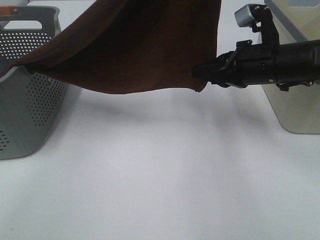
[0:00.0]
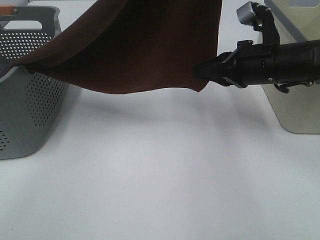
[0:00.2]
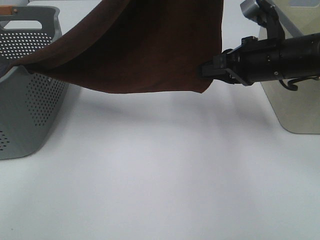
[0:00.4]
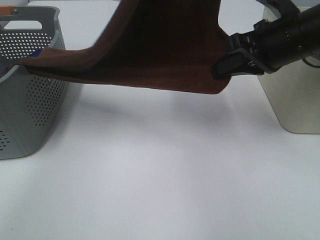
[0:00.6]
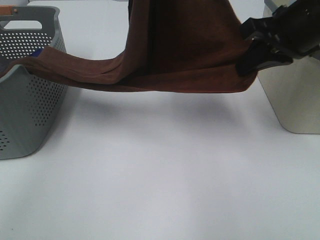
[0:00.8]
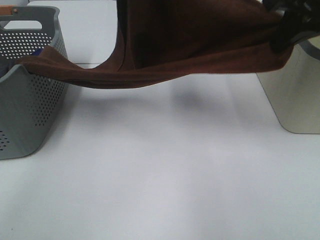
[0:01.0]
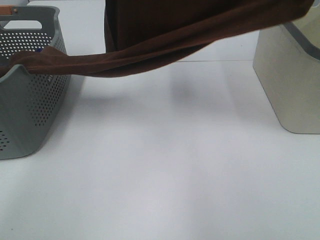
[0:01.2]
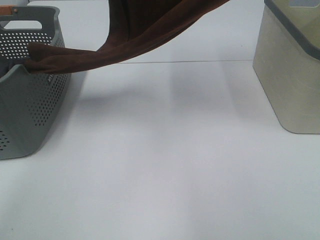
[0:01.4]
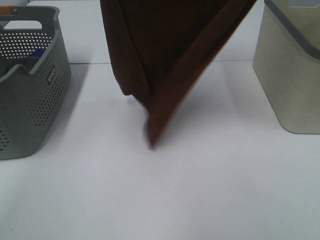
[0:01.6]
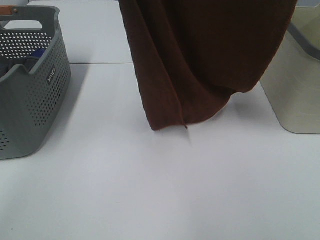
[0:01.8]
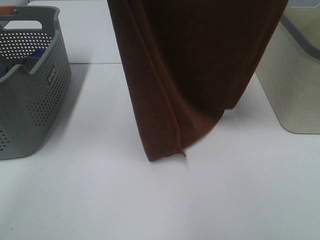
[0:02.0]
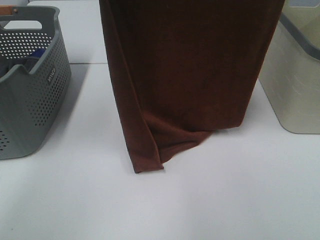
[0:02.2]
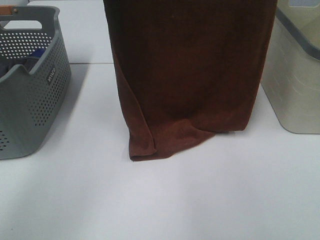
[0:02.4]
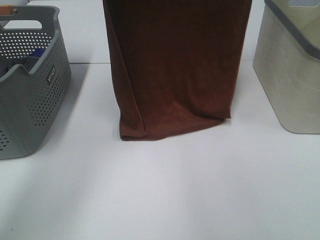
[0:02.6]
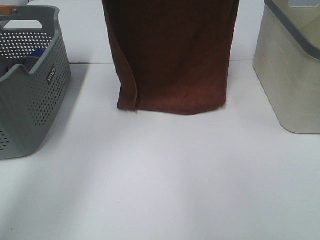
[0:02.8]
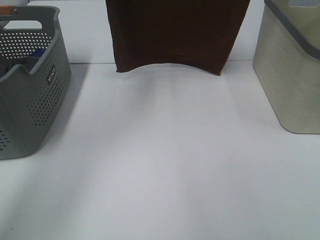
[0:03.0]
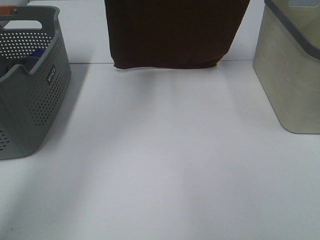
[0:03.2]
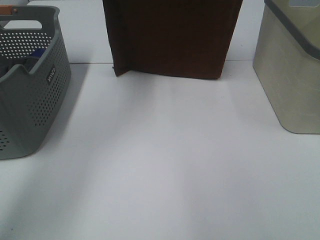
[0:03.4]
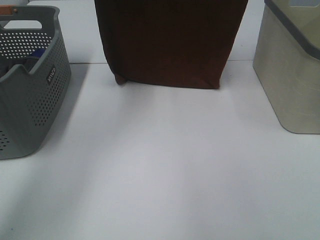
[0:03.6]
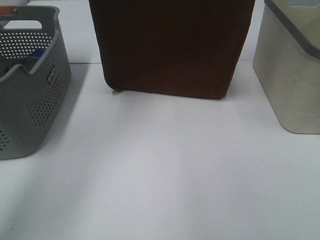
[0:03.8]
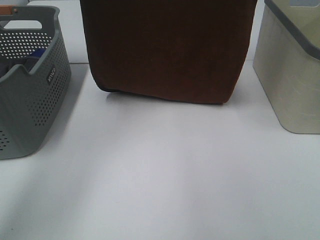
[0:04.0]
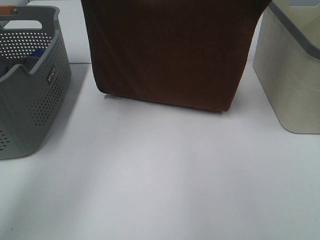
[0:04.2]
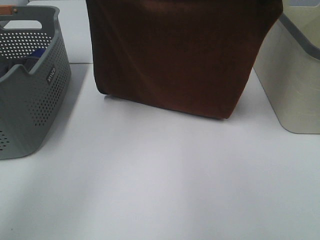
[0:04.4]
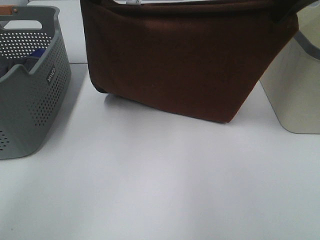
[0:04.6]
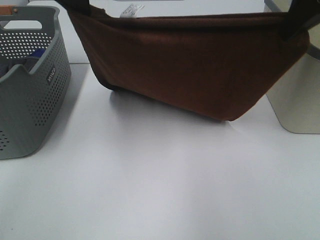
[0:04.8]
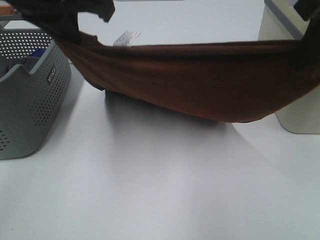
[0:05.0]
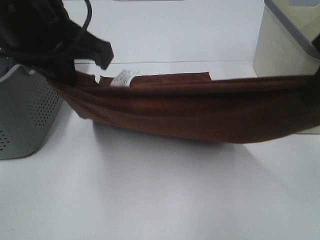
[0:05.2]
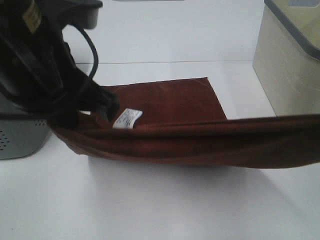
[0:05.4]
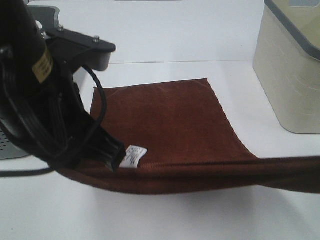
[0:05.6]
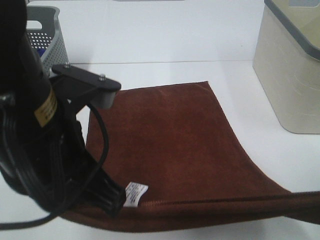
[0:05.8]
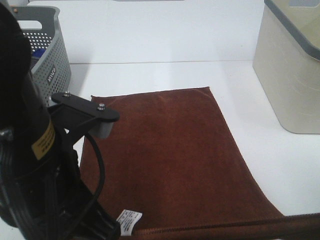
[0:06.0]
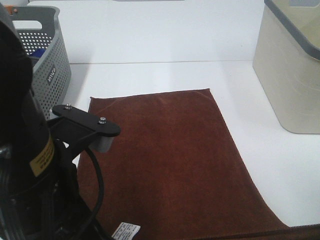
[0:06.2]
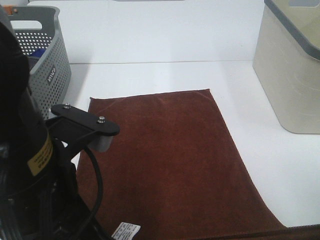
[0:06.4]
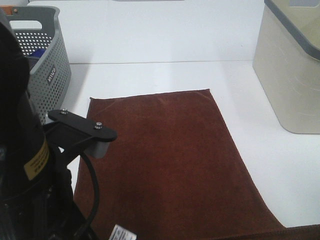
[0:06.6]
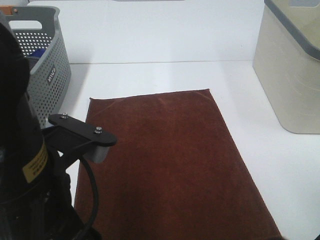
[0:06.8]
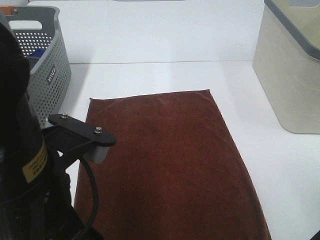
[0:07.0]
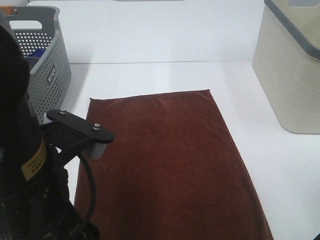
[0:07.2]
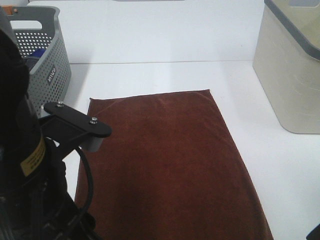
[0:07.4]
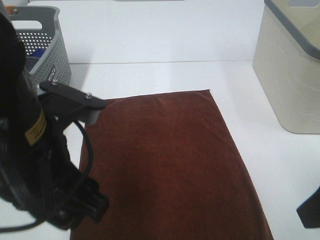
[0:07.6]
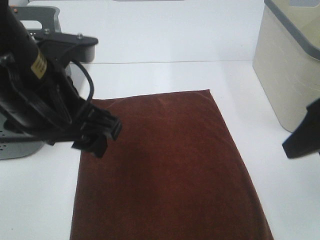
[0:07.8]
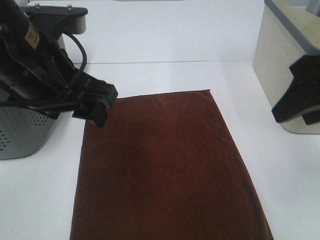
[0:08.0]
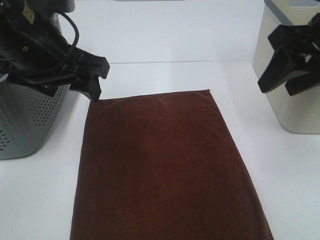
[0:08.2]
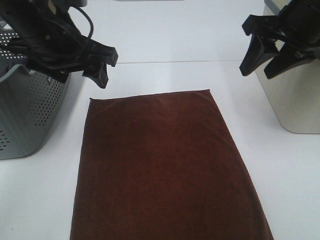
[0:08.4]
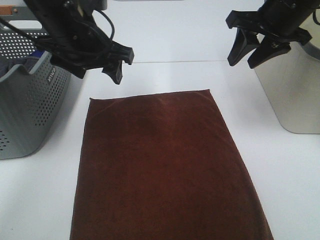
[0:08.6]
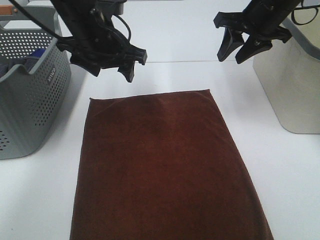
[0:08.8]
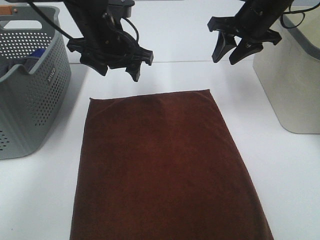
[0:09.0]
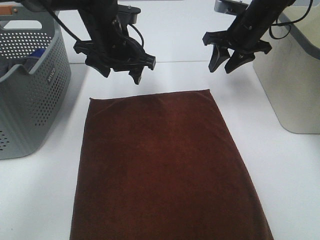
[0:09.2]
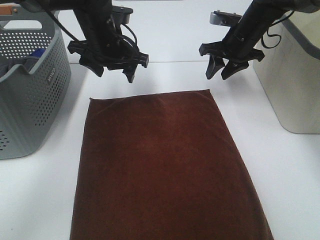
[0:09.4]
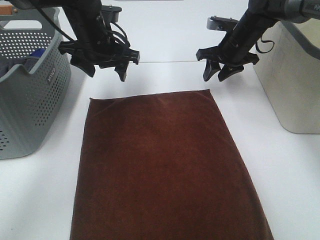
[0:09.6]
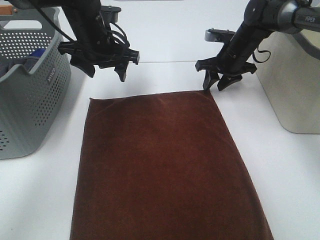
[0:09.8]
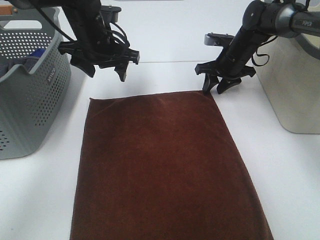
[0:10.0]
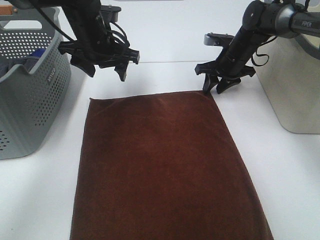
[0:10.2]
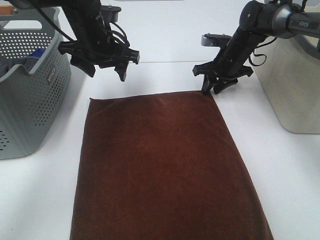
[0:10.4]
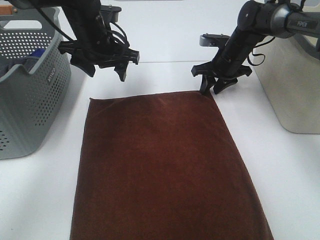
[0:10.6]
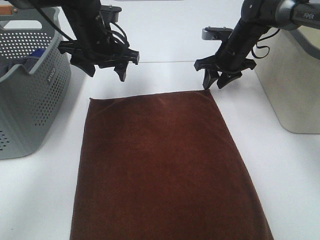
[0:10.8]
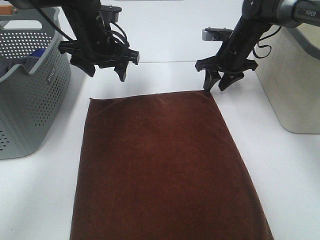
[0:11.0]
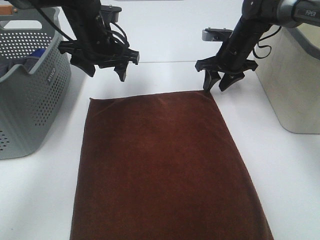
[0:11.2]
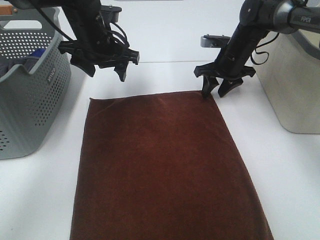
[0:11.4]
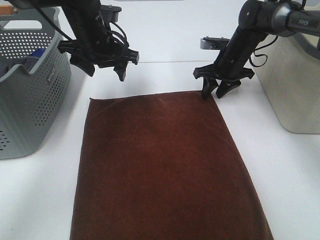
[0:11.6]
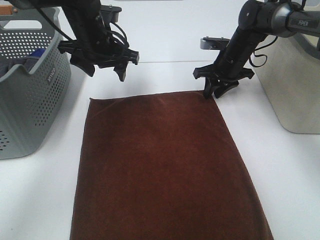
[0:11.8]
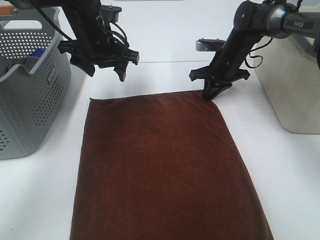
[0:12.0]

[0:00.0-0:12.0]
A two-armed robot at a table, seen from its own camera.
Task of the whole recording: Remove the towel and place it.
Step, 0:00.0 to 0:03.2: Left hand: spread the brown towel flat on the table.
Step, 0:00.0 to 0:03.2: Right hand: spread the brown towel flat on the table.
Step, 0:03.4 to 0:11.2: Left hand:adjust the brown towel.
Step, 0:03.4 to 0:11.2: Right hand:adjust the brown towel.
0:00.0 to 0:01.6: The right gripper is displaced upward by some 35 cm; the left gripper is displaced to the left and upward by about 15 cm.
0:01.6 to 0:03.0: The right gripper shifts about 10 cm forward, while the left gripper goes approximately 15 cm forward and downward.
0:03.0 to 0:04.4: Both grippers travel together downward, approximately 15 cm.
0:04.4 to 0:06.0: Both grippers travel together backward and downward, roughly 30 cm.
0:06.0 to 0:07.6: The right gripper opens. The left gripper opens up.
0:07.6 to 0:09.0: Both grippers move forward, roughly 30 cm. The right gripper closes.
0:09.0 to 0:10.4: The right gripper goes about 15 cm downward and forward.
0:10.4 to 0:12.0: The right gripper closes its fingers.

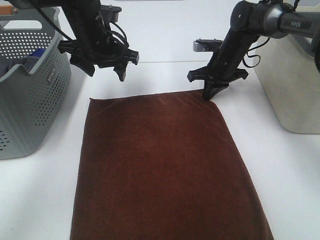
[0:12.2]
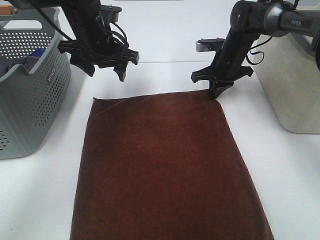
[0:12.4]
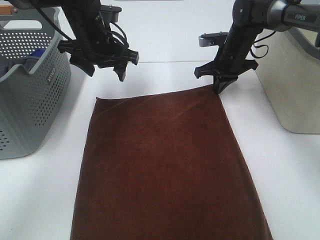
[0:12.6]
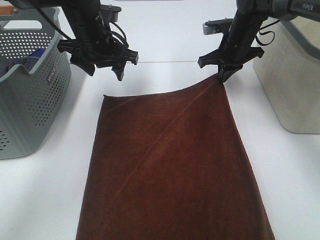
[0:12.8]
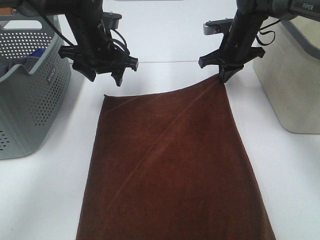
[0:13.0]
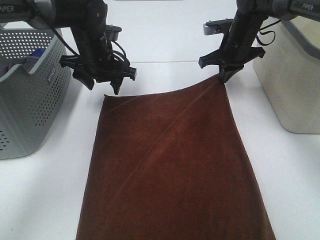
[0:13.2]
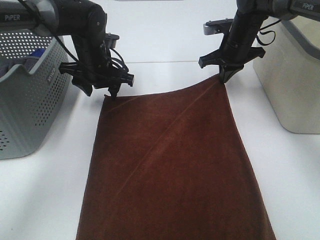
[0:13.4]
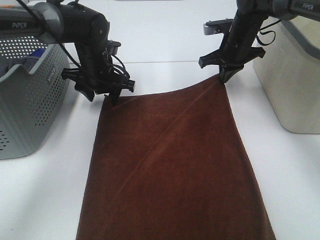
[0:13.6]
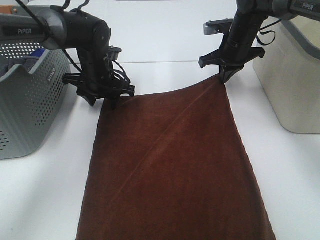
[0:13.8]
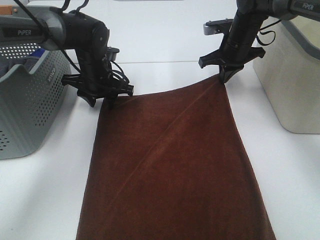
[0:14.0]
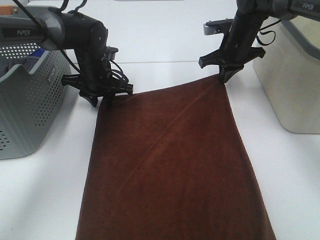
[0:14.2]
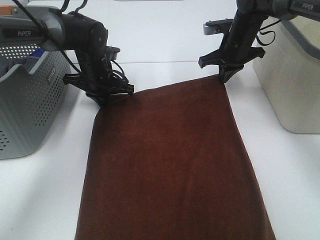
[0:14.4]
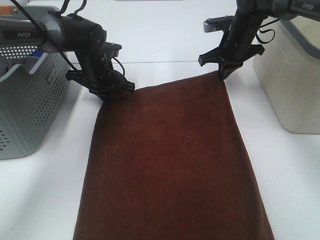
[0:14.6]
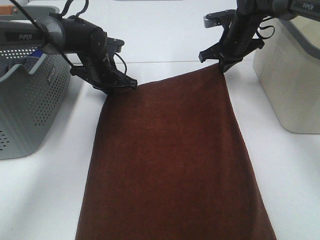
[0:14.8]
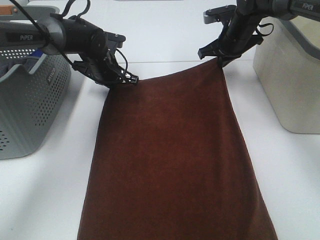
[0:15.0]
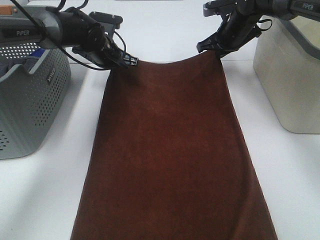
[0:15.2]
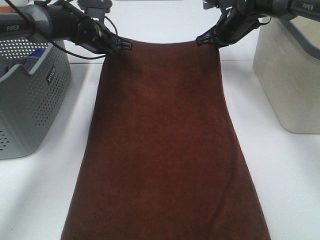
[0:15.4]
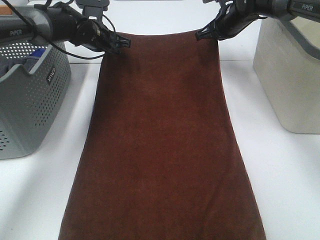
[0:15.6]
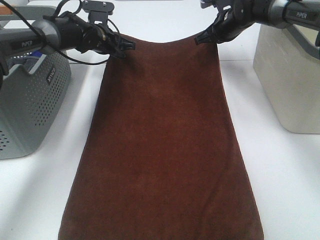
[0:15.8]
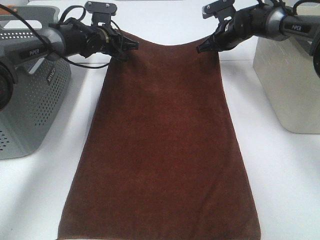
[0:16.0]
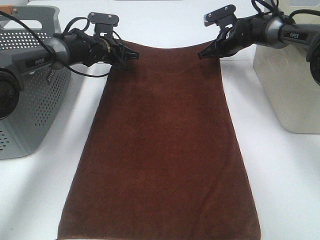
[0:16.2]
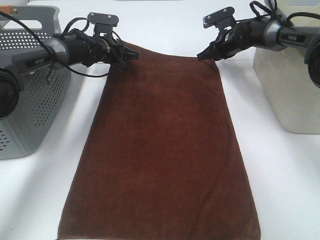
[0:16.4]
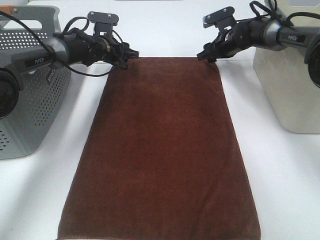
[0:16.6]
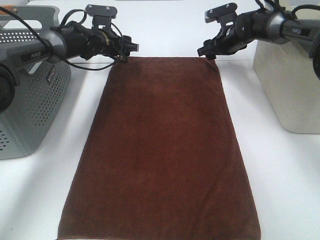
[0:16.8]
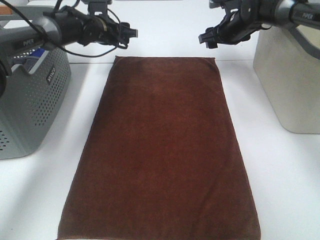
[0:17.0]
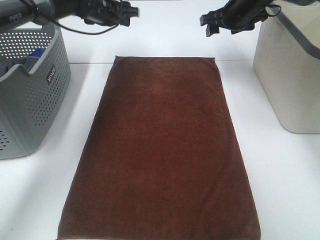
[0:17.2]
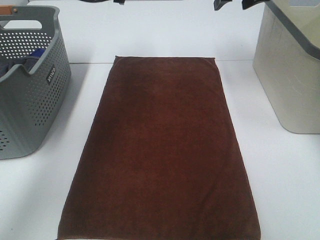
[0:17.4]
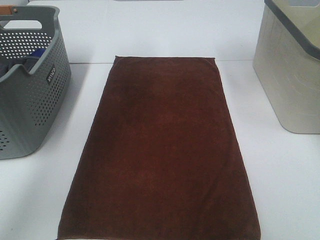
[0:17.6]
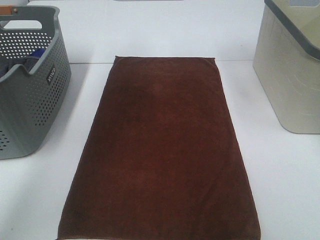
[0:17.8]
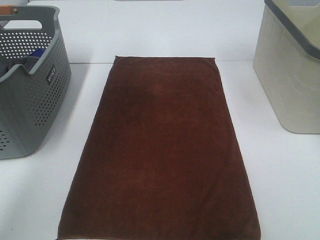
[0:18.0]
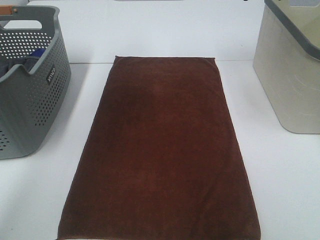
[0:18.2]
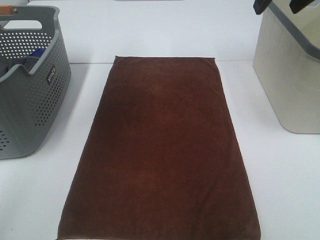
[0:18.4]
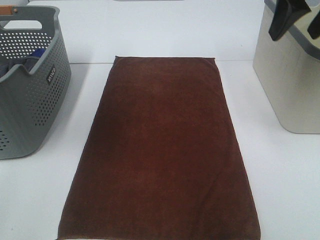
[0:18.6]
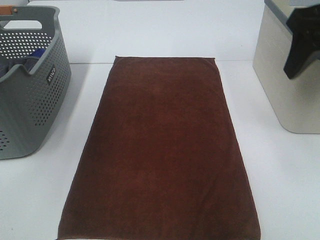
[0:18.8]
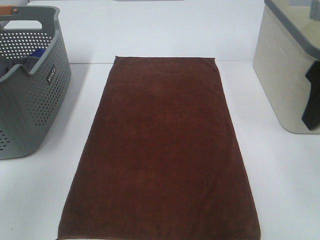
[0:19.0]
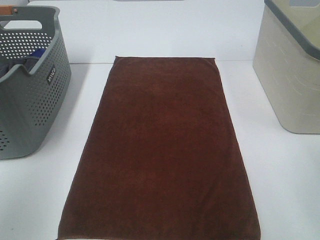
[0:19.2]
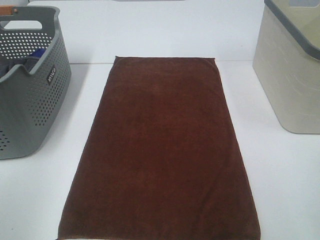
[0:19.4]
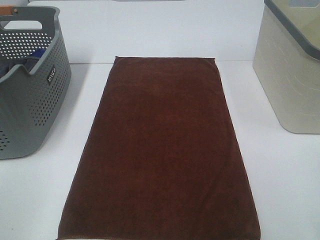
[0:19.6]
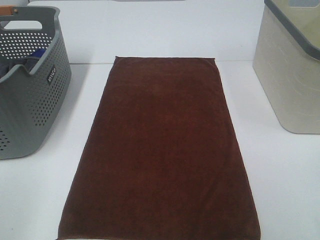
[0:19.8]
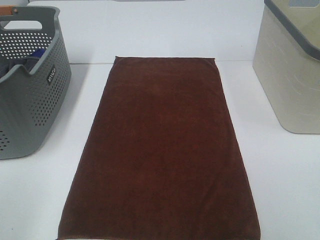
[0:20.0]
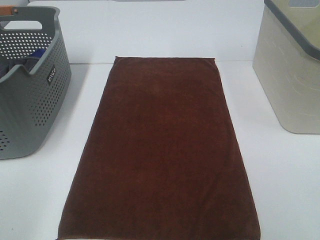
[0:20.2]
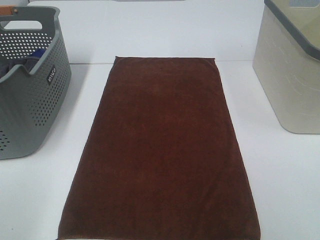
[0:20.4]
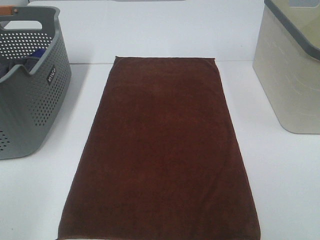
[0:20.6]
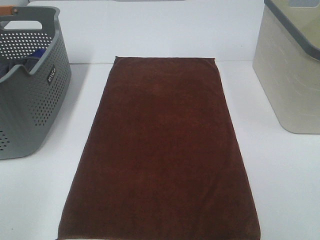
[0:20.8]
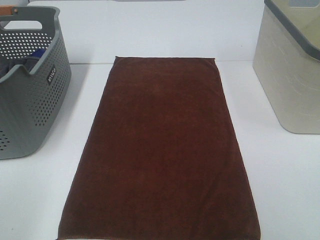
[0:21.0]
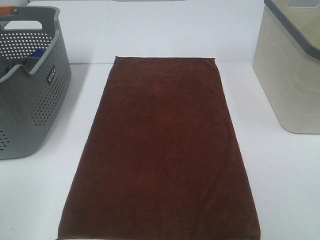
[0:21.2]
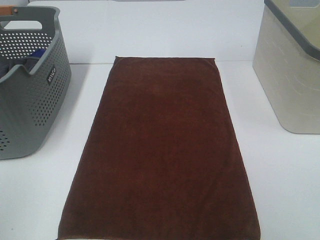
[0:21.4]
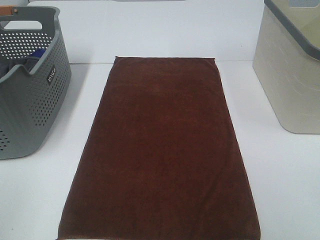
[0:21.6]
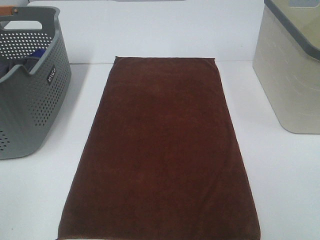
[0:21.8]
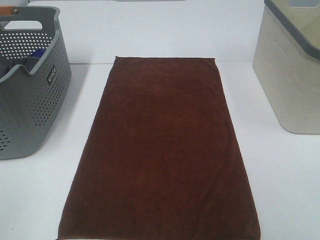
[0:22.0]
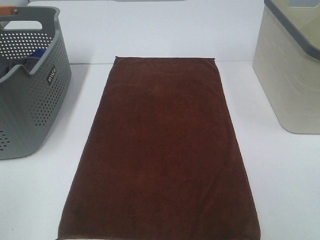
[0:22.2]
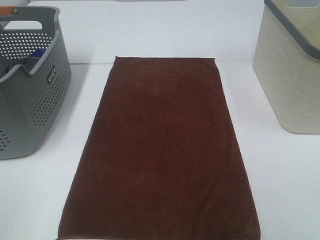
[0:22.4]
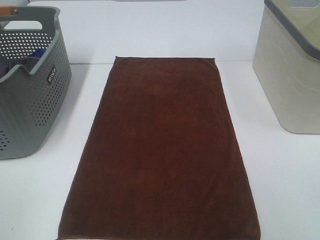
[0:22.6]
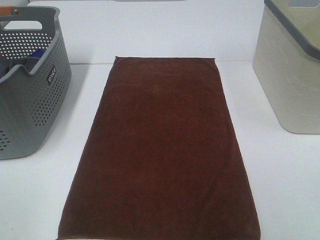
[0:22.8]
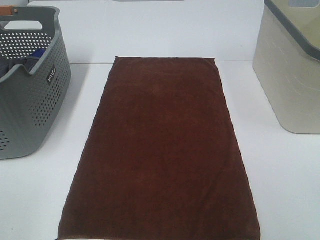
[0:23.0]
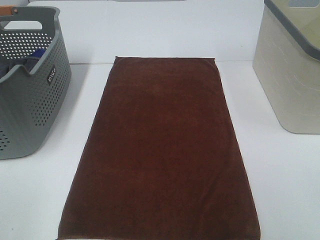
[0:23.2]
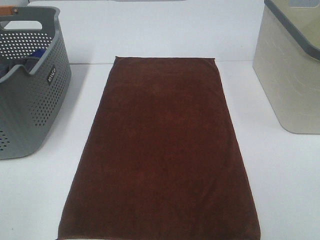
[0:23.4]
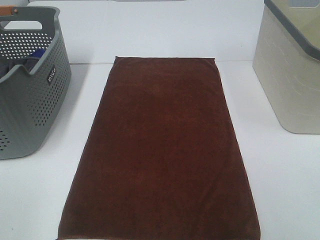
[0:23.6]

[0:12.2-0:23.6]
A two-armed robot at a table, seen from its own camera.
Task of the whole recording: Remove the towel and place it.
0:12.2 to 0:13.6: The left gripper shifts some 10 cm downward.
0:13.6 to 0:15.0: The left gripper closes up.
0:15.0 to 0:16.4: The right gripper ends up some 5 cm from where it was, and opens its fingers. The left gripper is displaced forward by about 5 cm.
0:16.4 to 0:17.8: The two grippers go approximately 30 cm upward and backward. The right gripper opens up. The left gripper opens up.
0:17.8 to 0:19.4: Both grippers move backward, roughly 35 cm.
